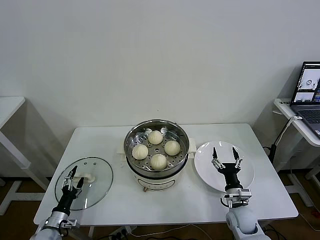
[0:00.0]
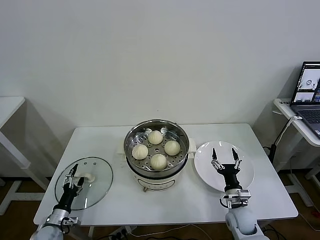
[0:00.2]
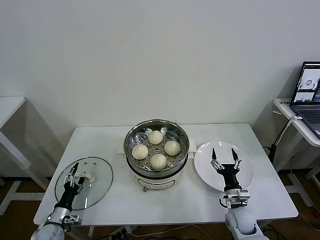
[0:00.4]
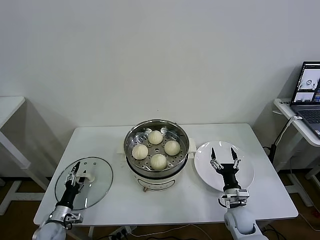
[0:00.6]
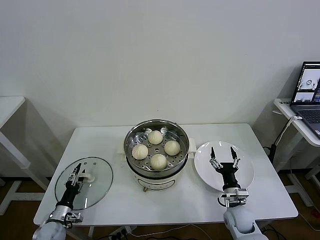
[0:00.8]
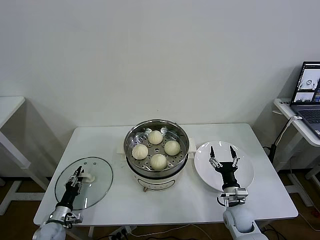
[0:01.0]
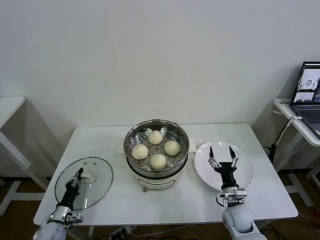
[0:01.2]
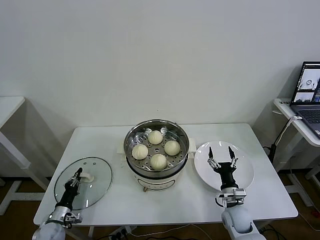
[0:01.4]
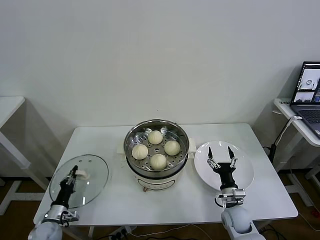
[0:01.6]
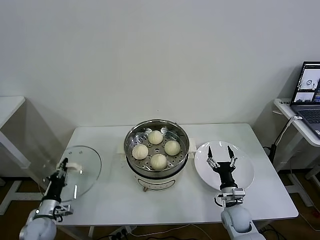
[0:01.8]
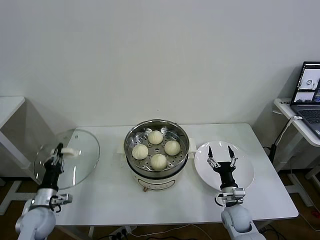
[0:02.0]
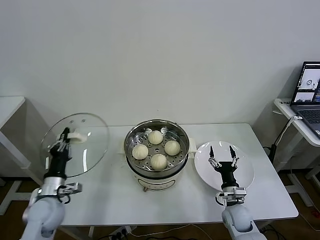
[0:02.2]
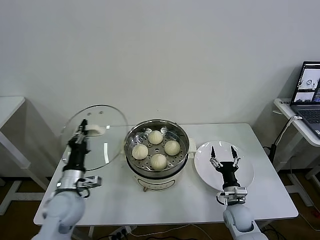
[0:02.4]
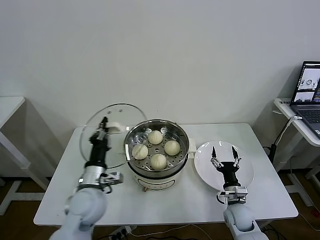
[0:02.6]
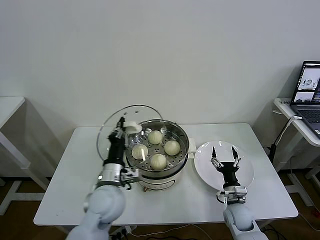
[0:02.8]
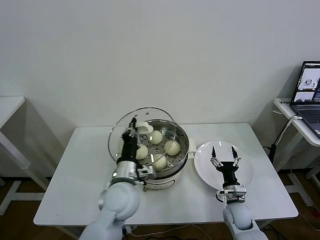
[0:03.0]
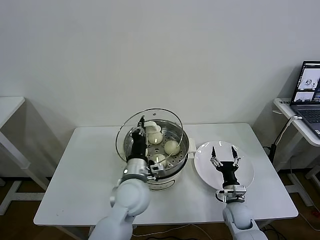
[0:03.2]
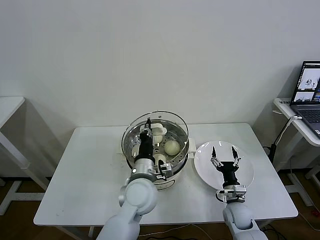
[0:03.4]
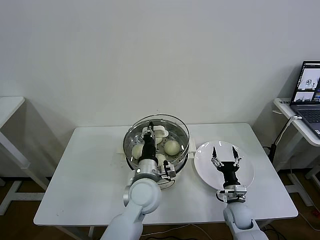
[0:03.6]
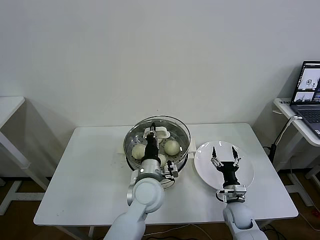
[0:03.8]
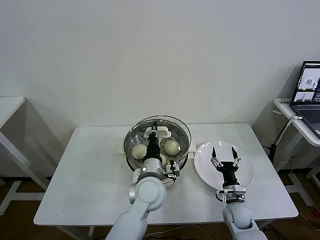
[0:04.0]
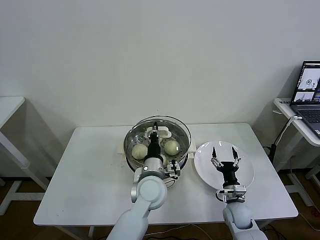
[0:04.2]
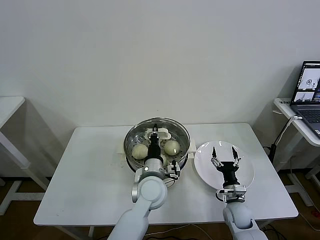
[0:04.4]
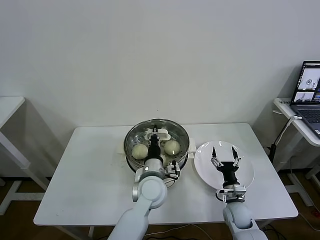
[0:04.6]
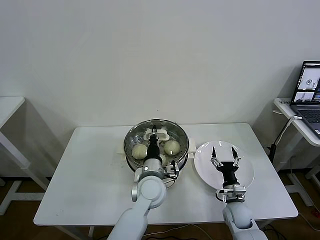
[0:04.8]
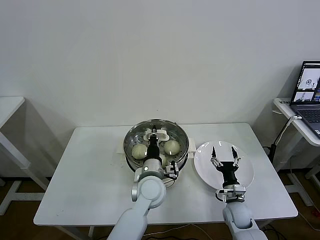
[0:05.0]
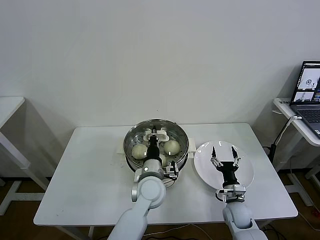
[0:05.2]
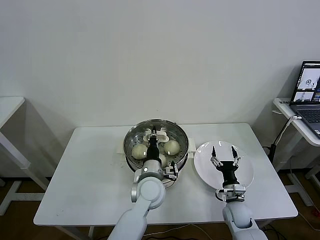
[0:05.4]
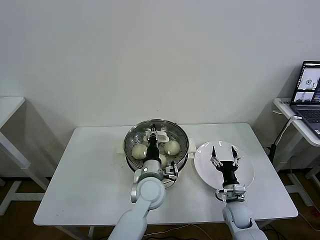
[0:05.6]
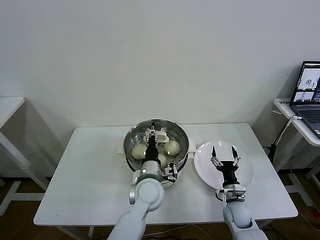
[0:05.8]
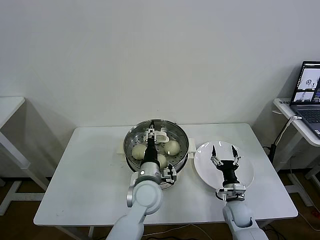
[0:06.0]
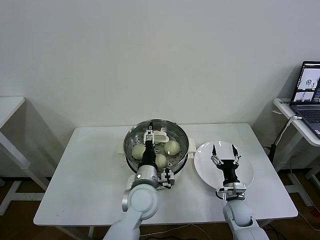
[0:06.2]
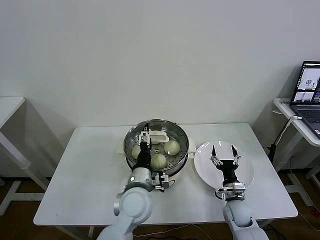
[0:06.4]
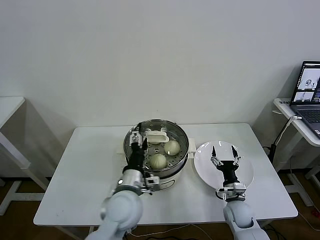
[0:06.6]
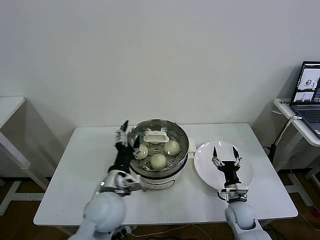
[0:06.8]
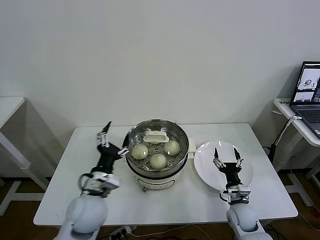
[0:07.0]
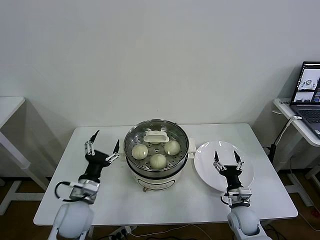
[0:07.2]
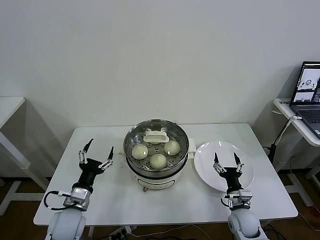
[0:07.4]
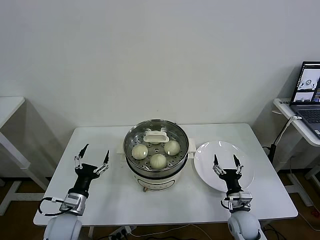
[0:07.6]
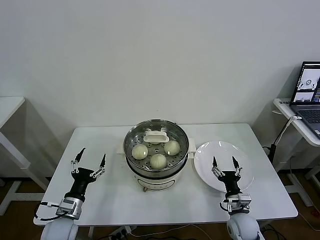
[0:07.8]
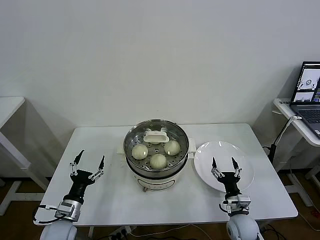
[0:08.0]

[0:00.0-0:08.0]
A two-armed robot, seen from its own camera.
Task of the whole recording: take steamed baozi put them in steamer then cover it.
Step, 0:01.6 to 0:05.8: Place the pot lid on the steamer with left gripper.
0:00.0 to 0:01.6: The left gripper closes up.
0:01.6 to 0:03.2: The left gripper moves to the right and upward, about 40 cm.
0:03.2 to 0:04.8: The left gripper travels to the right by approximately 5 cm.
0:04.8 to 0:06.4: The left gripper changes place by approximately 5 cm, and opens up.
0:06.4 to 0:08.0: The right gripper shifts some 5 cm backward, while the left gripper heads to the left and downward, covering some 30 cm.
